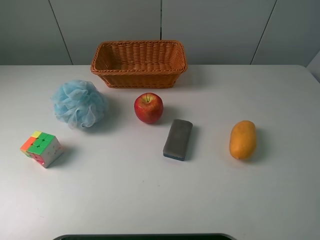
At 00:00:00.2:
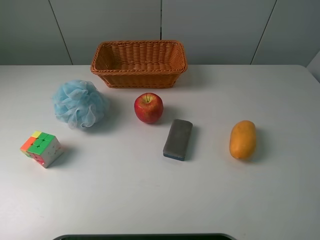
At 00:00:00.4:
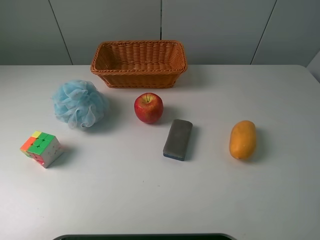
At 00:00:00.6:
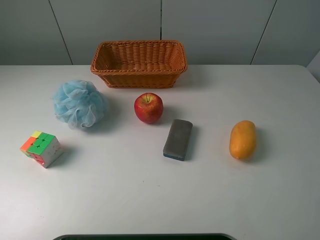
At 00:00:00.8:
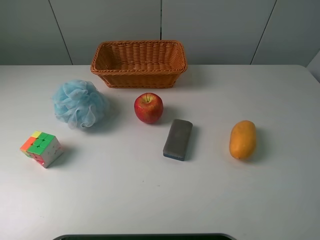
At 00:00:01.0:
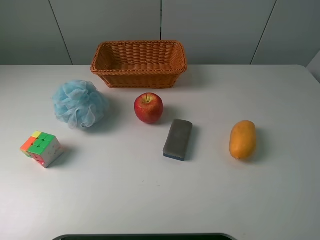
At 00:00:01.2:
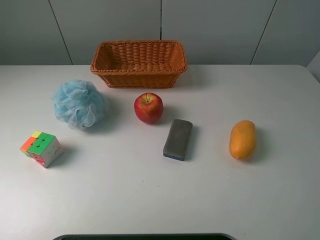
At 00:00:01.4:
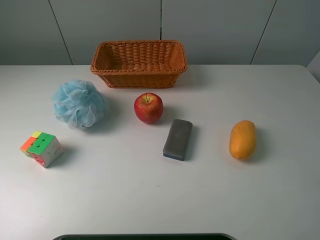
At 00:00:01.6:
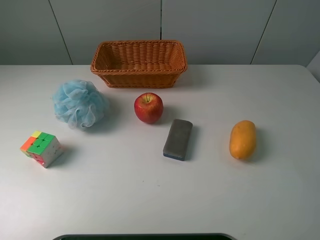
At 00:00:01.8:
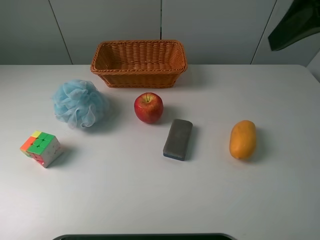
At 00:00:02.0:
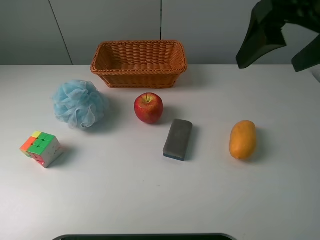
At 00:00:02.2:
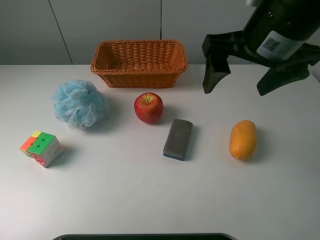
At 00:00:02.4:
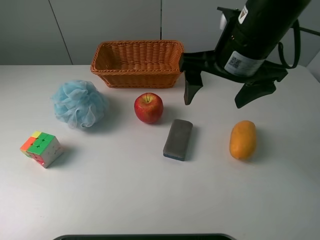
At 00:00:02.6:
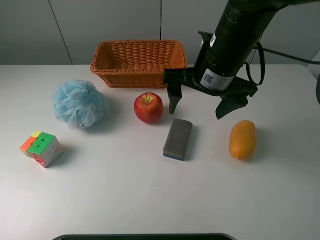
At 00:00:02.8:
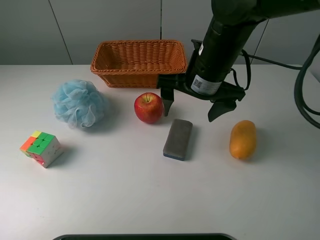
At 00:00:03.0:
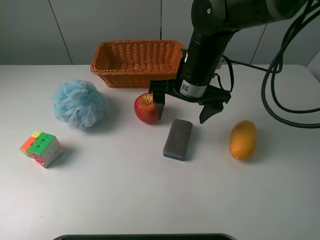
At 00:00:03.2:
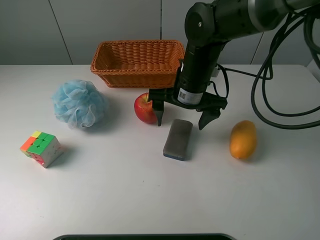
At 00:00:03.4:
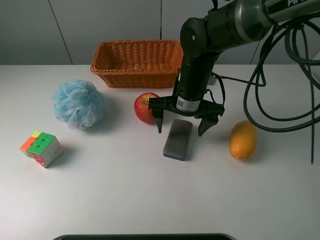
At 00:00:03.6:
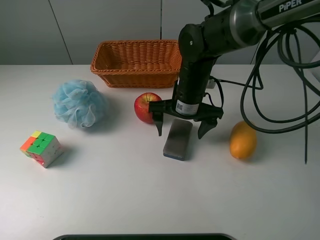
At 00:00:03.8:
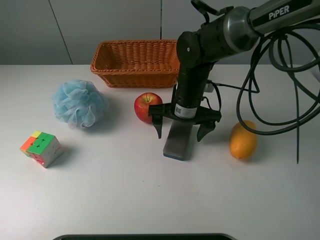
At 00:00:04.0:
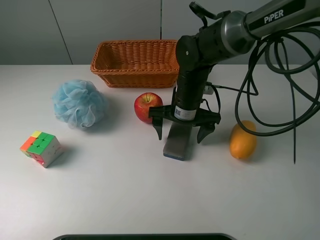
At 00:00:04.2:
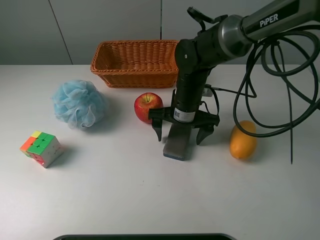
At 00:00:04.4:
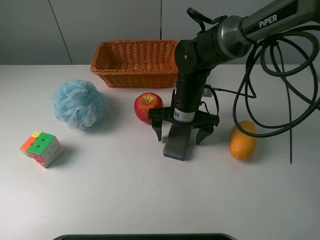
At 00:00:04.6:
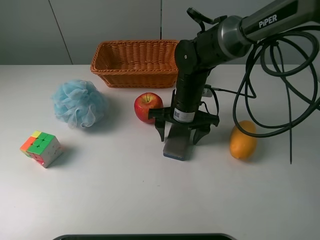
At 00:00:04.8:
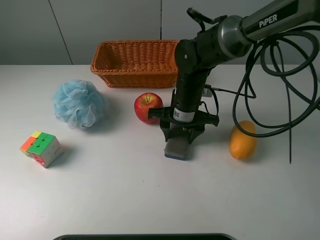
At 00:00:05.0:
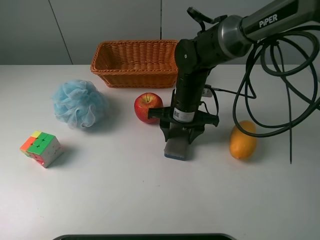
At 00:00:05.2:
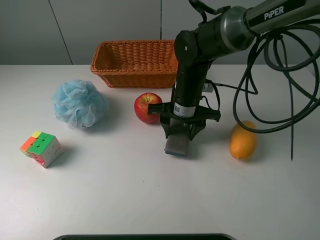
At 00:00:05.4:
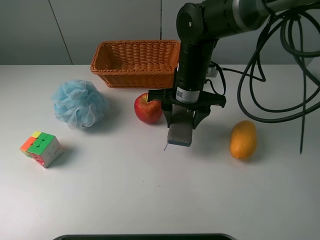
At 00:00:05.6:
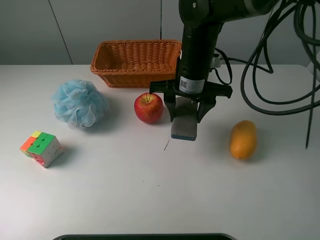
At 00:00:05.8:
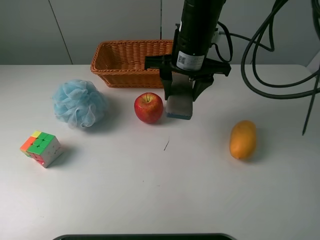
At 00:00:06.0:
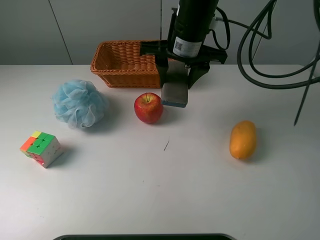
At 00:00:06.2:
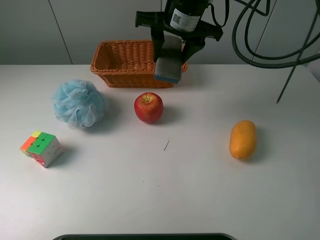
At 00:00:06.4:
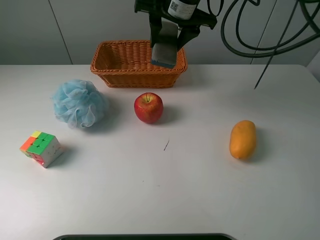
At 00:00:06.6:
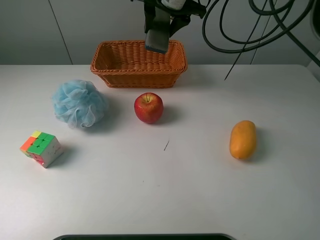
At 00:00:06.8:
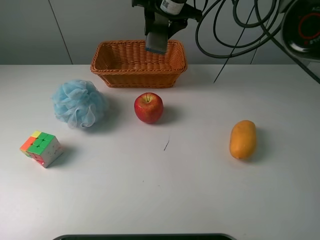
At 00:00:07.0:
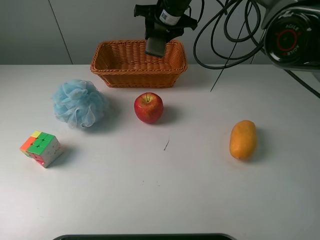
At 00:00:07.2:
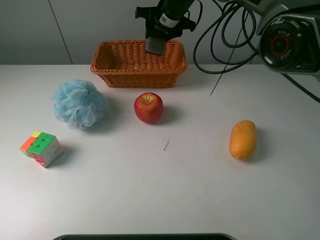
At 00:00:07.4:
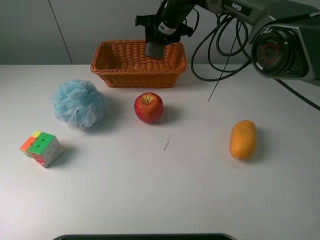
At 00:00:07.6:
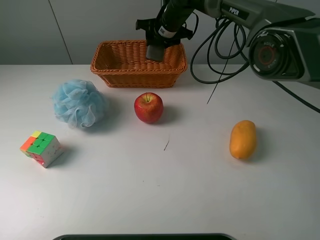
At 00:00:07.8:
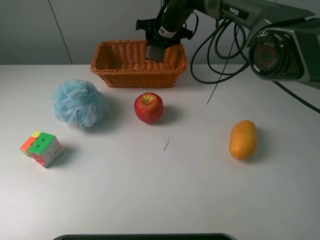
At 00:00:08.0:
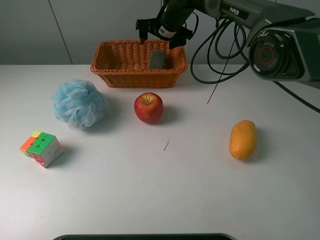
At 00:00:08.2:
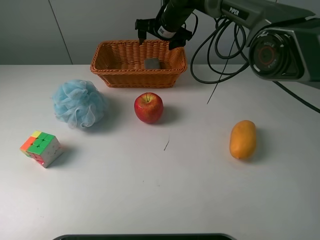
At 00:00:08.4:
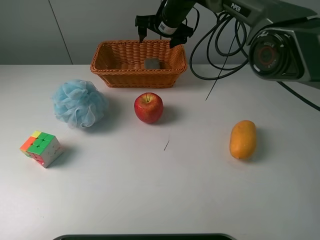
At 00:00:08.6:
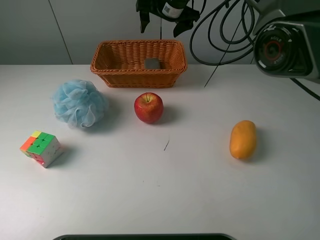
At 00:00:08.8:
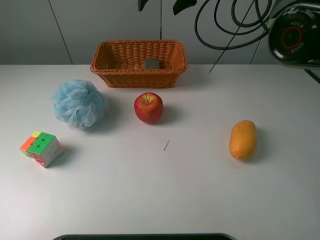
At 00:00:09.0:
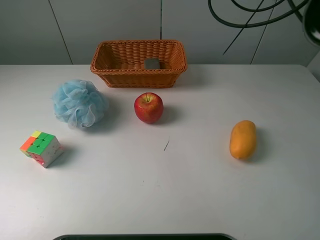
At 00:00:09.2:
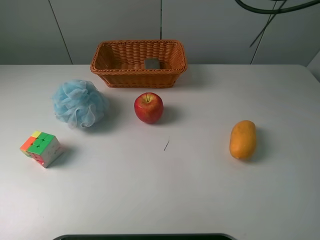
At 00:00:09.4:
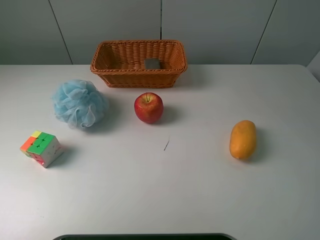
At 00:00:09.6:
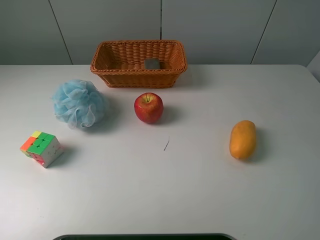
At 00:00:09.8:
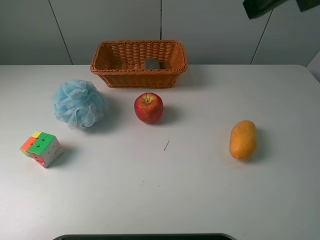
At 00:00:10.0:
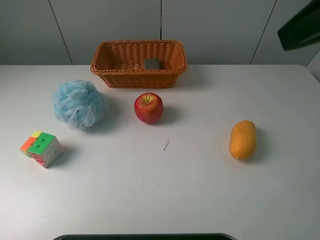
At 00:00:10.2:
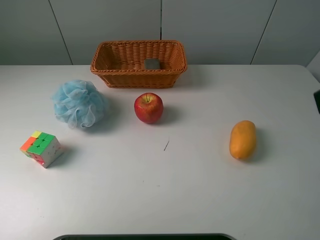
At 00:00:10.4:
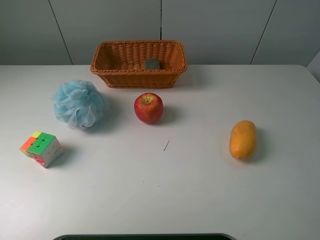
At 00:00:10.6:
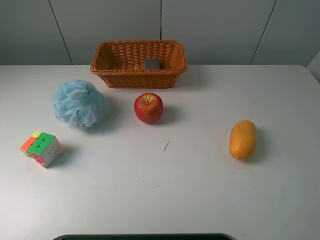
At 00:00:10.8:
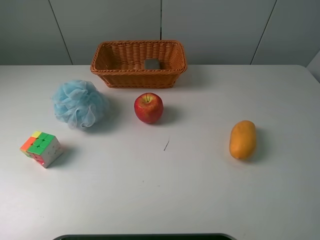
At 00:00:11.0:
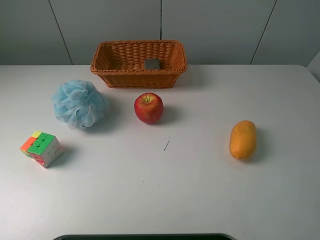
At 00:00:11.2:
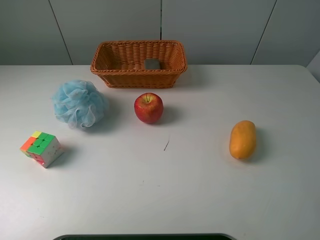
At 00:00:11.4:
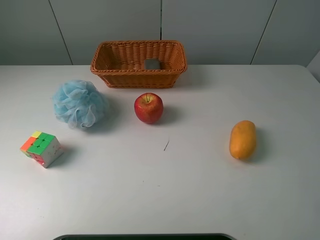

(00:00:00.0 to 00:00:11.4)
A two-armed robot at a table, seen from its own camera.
Task of the whole recording: use a picker to grab the item closest to the apple and place it in the basket.
Step, 00:00:00.0 - 00:00:05.0: Grasp the chalkboard eraser with the right gripper.
Step, 00:00:05.2 - 00:00:08.2: Place the chalkboard eraser into the basket with the right gripper.
00:00:01.4 - 00:00:02.8: The right gripper travels forward, to the left and downward by about 30 cm.
00:00:02.8 - 00:00:04.2: The right gripper heads downward, covering some 10 cm.
00:00:04.2 - 00:00:05.6: The right gripper shifts some 5 cm upward, and closes up.
00:00:05.6 - 00:00:07.2: The right gripper is displaced forward by roughly 20 cm.
00:00:07.2 - 00:00:08.6: The right gripper opens.
00:00:08.6 - 00:00:10.0: The right gripper goes about 40 cm backward, upward and to the right.
00:00:10.0 - 00:00:11.4: The right gripper travels backward, downward and to the right by about 20 cm.
